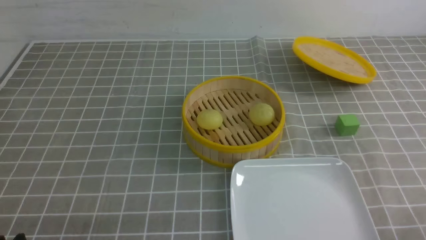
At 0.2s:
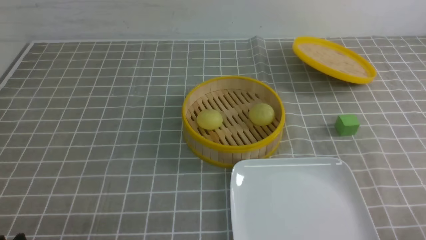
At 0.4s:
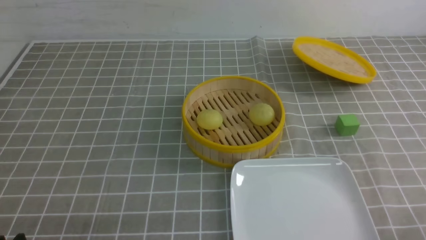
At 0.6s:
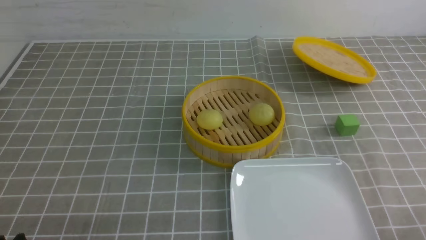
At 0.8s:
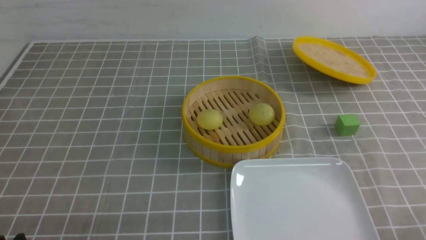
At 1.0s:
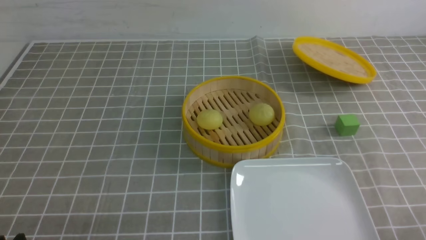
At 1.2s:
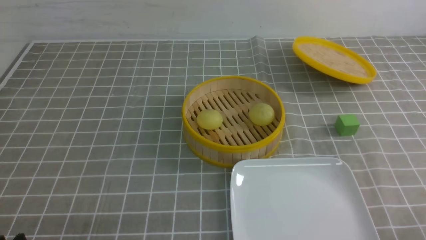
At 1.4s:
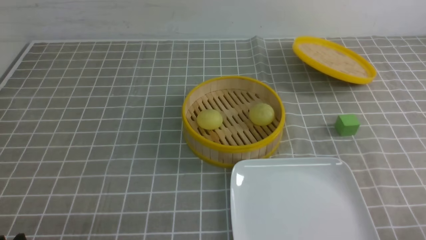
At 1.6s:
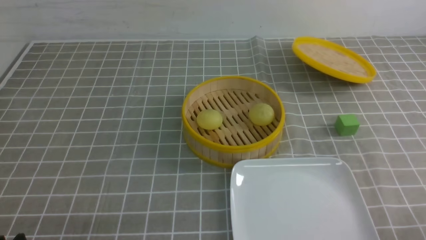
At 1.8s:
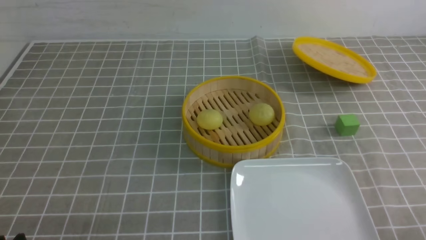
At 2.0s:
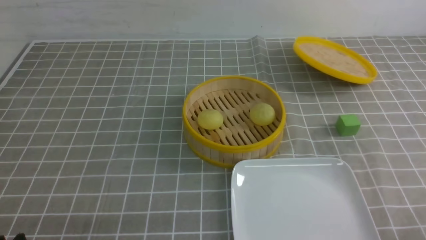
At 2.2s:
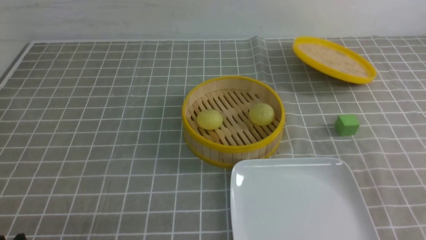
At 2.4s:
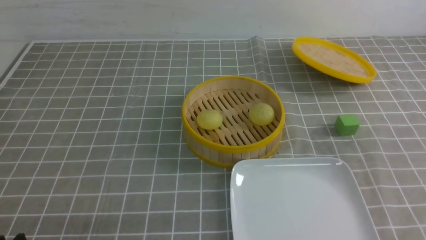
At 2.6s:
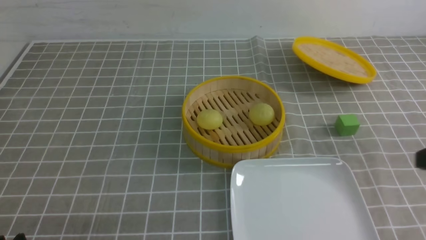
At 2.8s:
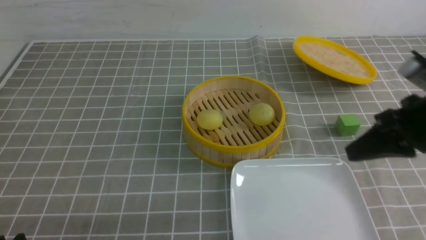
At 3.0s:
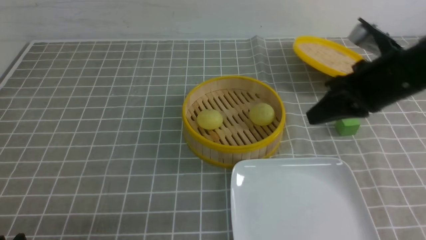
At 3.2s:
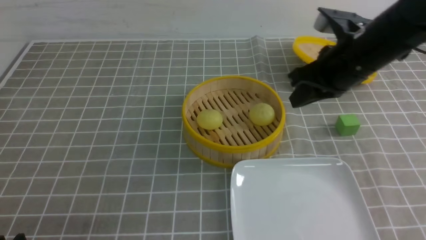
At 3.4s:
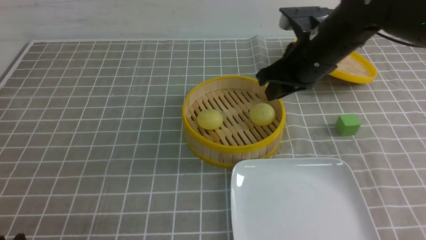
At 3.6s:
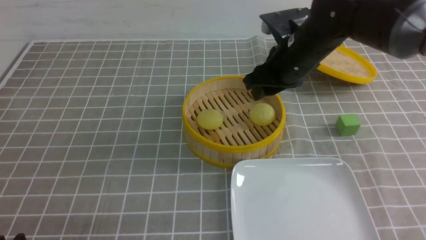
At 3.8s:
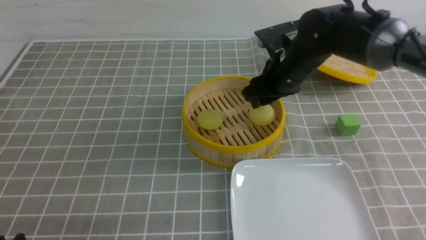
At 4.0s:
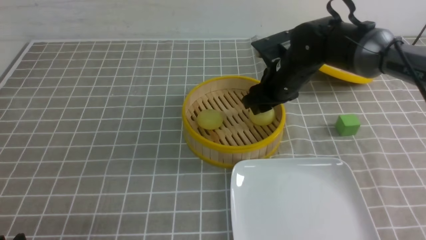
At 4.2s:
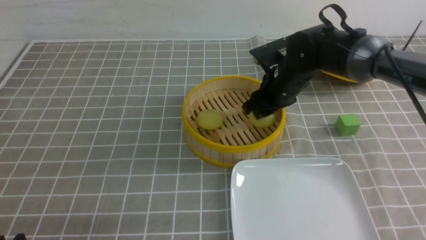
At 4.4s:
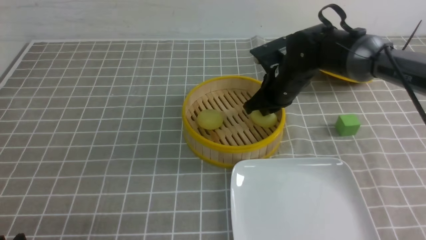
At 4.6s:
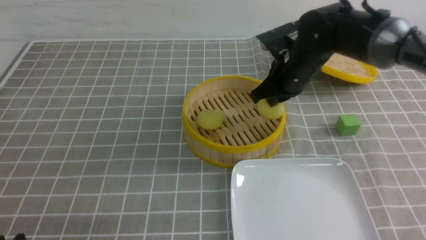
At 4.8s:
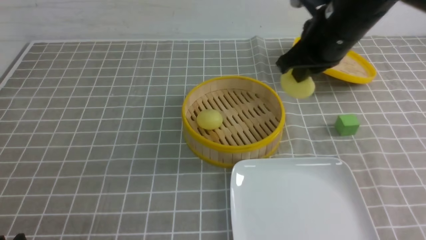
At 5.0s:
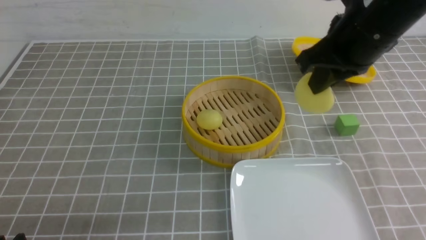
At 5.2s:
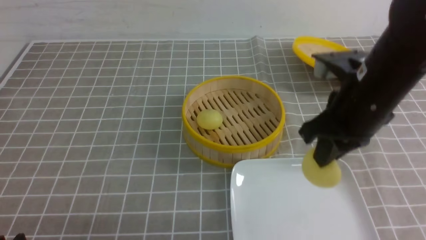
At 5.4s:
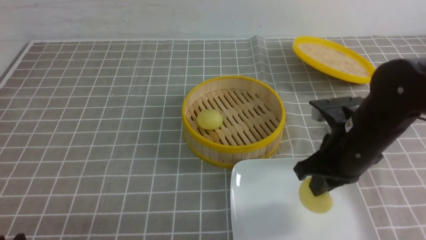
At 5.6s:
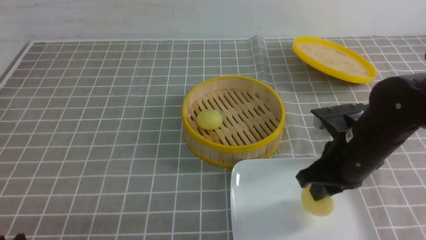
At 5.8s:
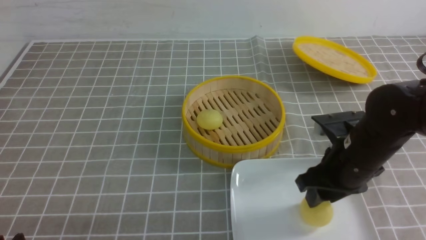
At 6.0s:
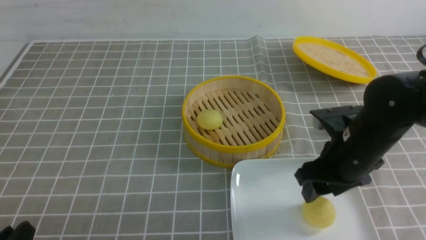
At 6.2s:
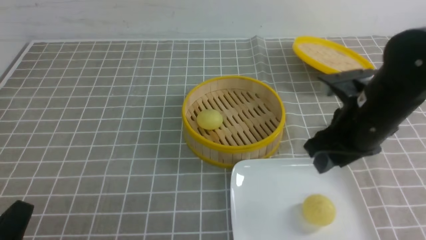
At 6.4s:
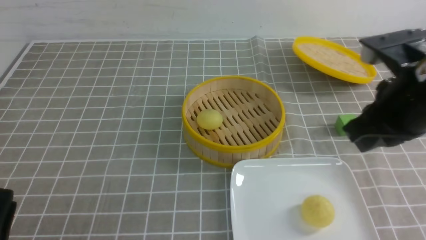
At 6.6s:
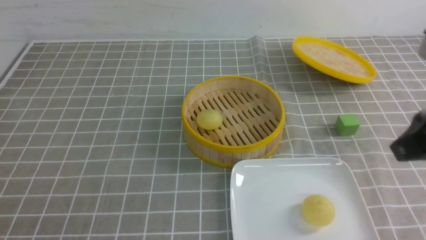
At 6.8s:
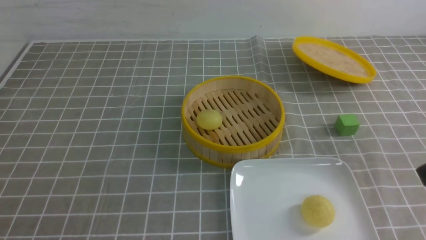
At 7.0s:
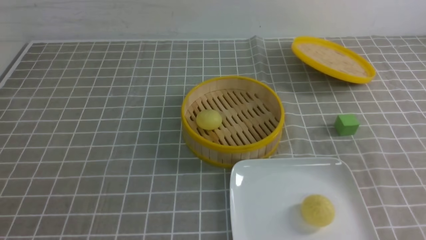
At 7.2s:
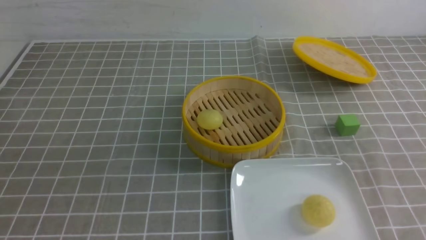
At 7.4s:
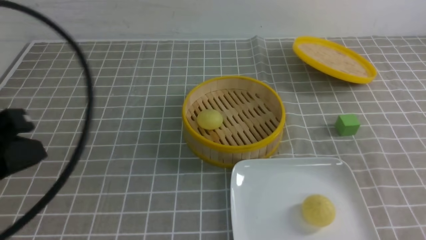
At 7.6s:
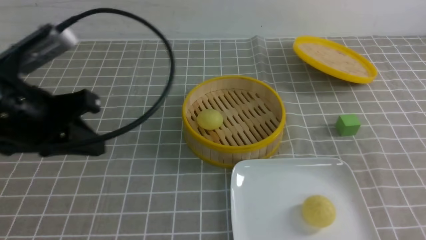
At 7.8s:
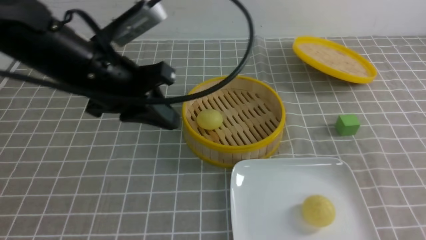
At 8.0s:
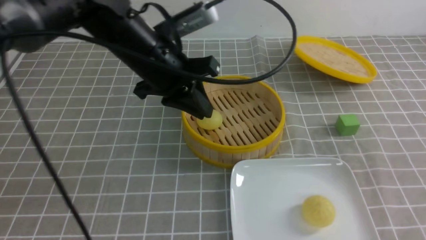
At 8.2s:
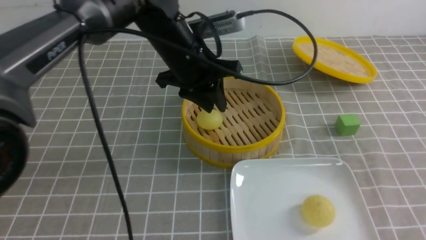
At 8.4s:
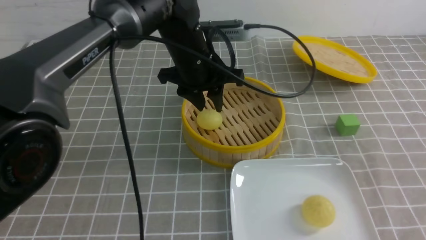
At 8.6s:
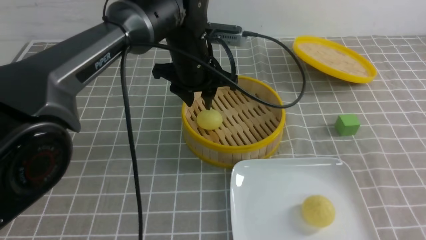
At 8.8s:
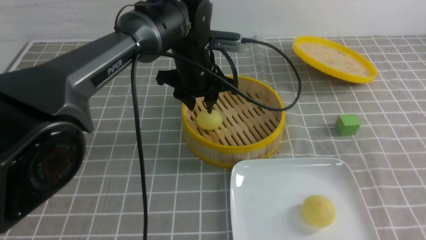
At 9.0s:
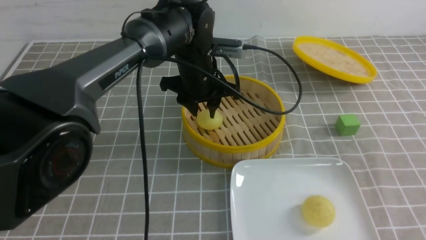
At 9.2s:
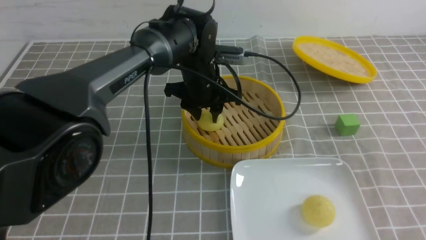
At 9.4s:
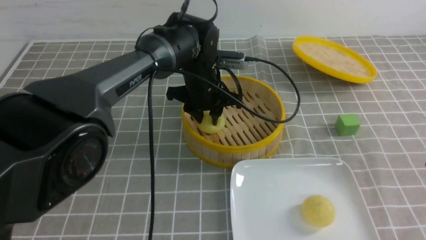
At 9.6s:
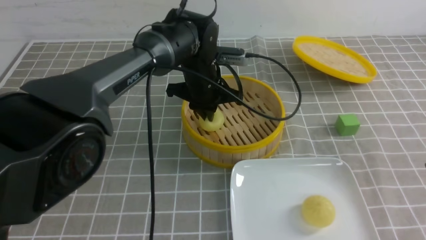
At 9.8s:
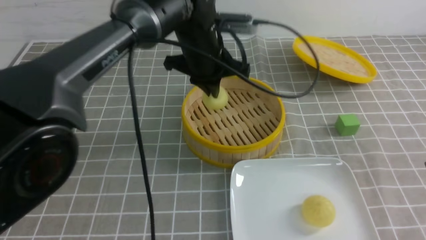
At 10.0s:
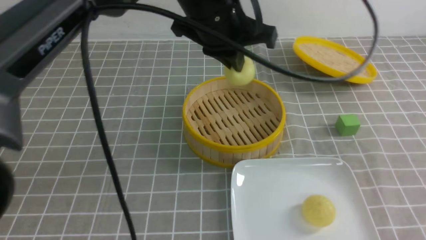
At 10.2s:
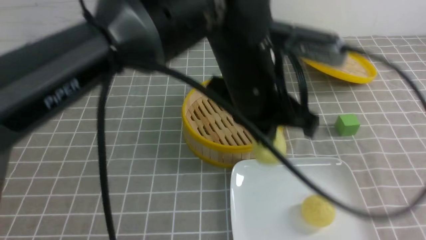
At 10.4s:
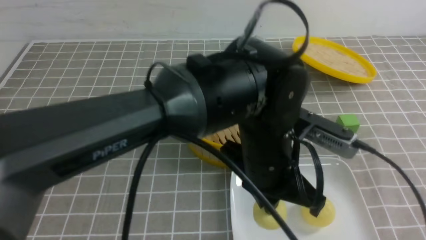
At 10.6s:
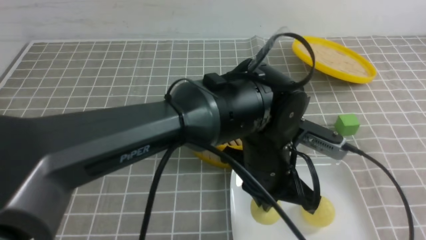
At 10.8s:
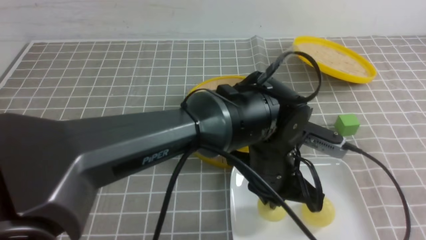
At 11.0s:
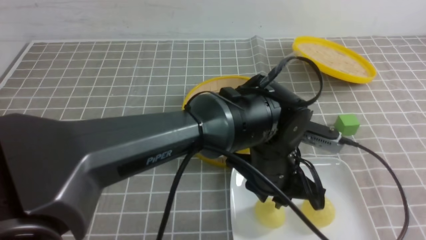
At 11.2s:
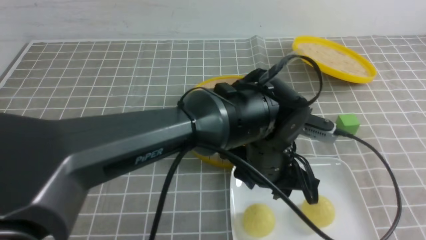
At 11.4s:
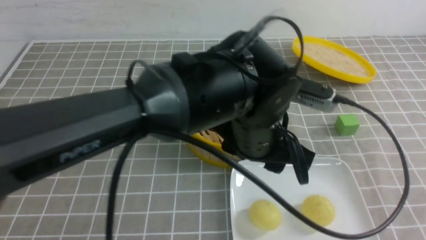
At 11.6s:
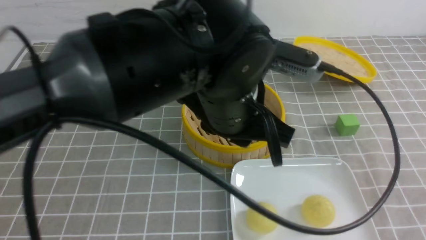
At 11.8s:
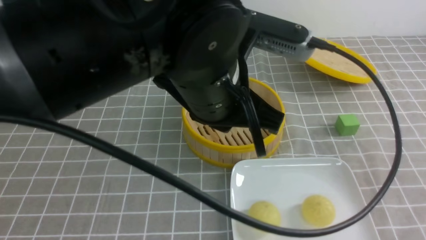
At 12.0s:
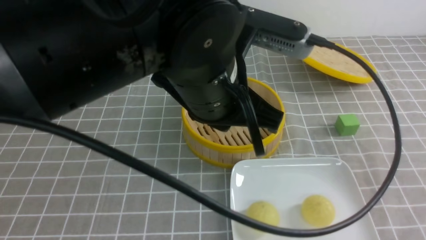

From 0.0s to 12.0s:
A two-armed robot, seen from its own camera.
Step, from 0.0s to 4.4s: use the right arm to grab the steamed stuffed bun that is closest to it.
Step, from 4.6s to 5.8s: use the right arm to put the steamed stuffed bun into the plate.
Step, from 6.2s to 9.6s: use the left arm to grab the steamed stuffed bun that is closest to it.
Step, from 9.8s to 11.0s: use the left arm to put the steamed stuffed bun into the plate.
From 1.6s to 3.0s: The right gripper travels forward and upward by approximately 25 cm, and closes up.
From 3.0s to 4.4s: The right gripper heads forward, to the left and downward, covering about 20 cm, and opens.
From 4.4s to 6.0s: The right gripper is displaced backward by roughly 15 cm, and opens.
From 6.0s to 7.6s: The right gripper shifts about 20 cm backward, upward and to the right, and closes up. The left gripper moves upward and forward, about 20 cm, and closes its fingers.
From 7.6s to 9.0s: The left gripper travels forward, to the right and downward by approximately 30 cm, and opens up.
From 9.0s to 10.4s: The left gripper is displaced backward and to the right by some 20 cm, and closes up. The right gripper shifts by about 5 cm.
From 10.4s to 12.0s: The left gripper goes approximately 10 cm upward and to the left, and opens, then closes again.

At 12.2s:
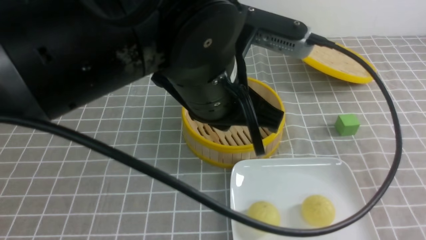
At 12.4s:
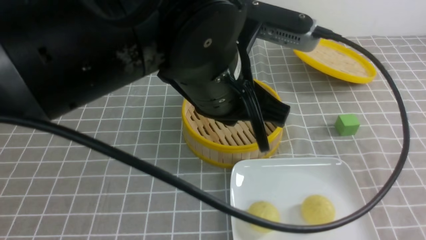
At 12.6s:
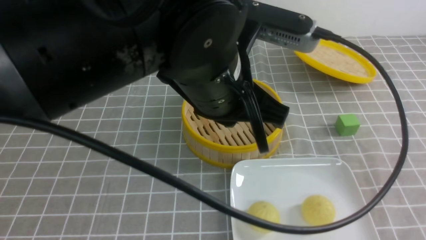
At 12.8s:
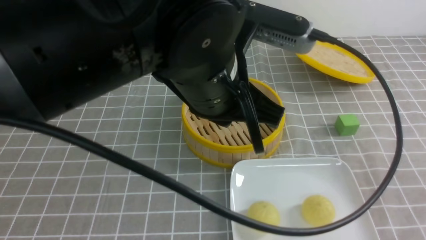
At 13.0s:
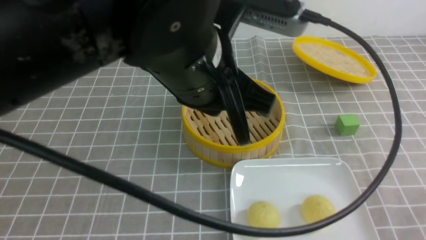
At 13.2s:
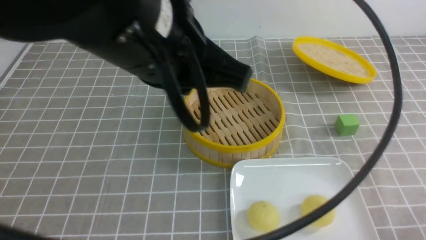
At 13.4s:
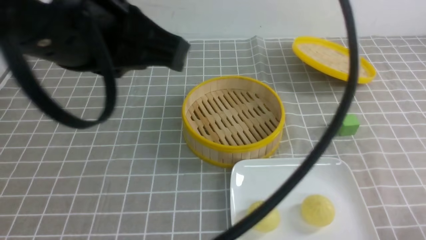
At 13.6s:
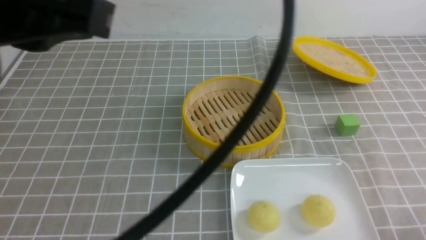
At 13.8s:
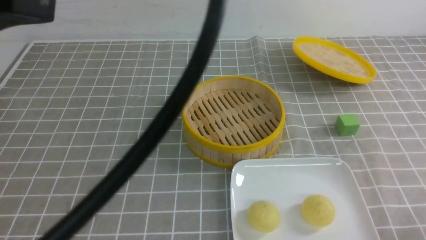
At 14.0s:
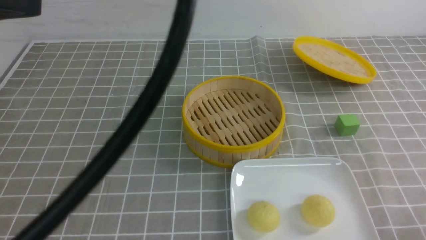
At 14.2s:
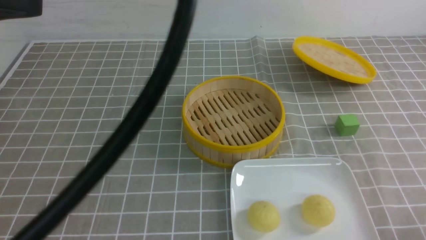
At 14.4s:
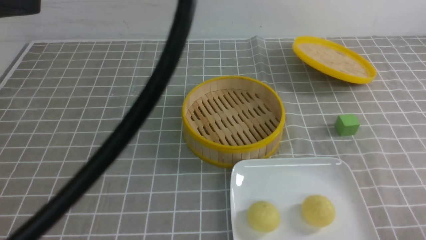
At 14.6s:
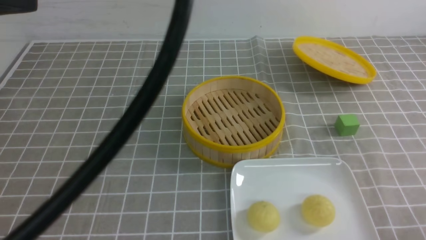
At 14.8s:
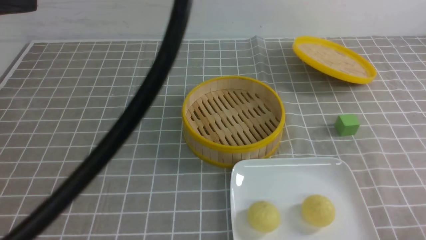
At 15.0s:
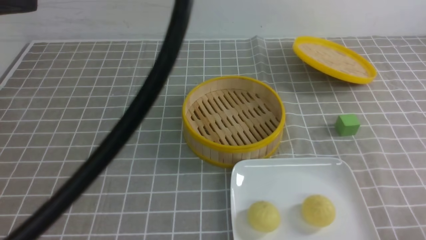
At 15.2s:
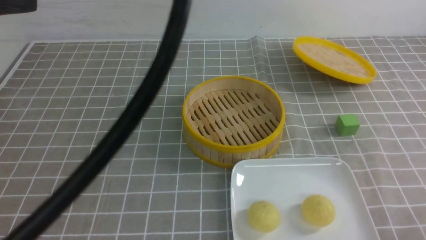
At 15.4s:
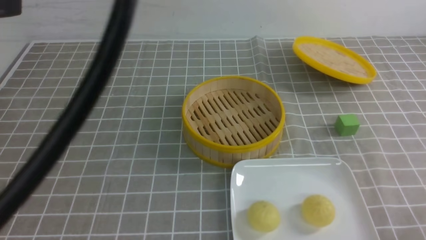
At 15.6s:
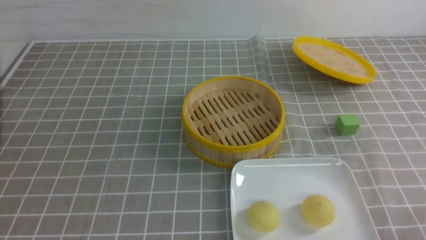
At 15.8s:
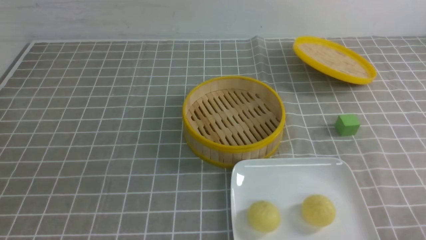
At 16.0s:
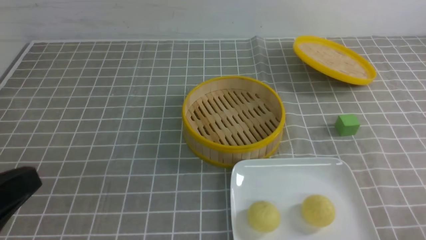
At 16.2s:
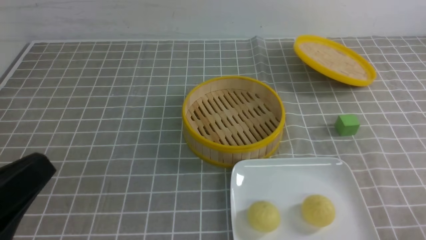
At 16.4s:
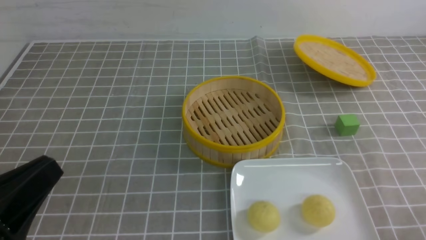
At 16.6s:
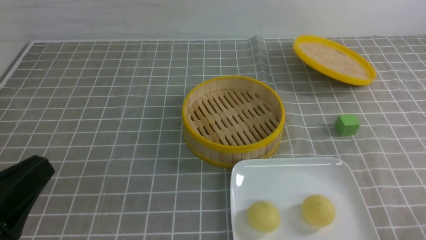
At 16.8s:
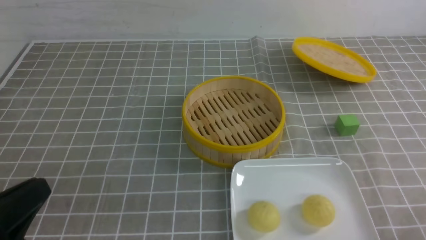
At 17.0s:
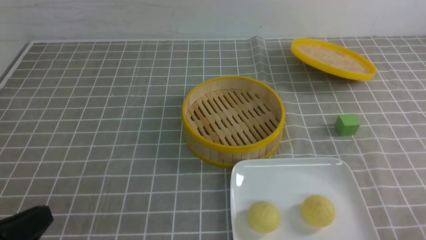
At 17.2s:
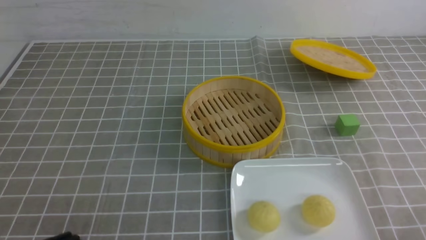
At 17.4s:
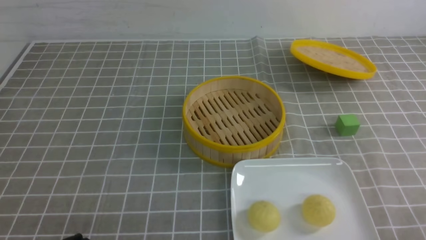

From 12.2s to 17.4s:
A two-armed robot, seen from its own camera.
From 12.2s to 14.0s: The left gripper goes roughly 25 cm to the left, upward and backward; the right gripper moves downward, roughly 15 cm.
From 14.0s to 15.6s: The left gripper changes place by approximately 5 cm.
From 15.6s to 17.4s: The left gripper moves downward, about 25 cm.
